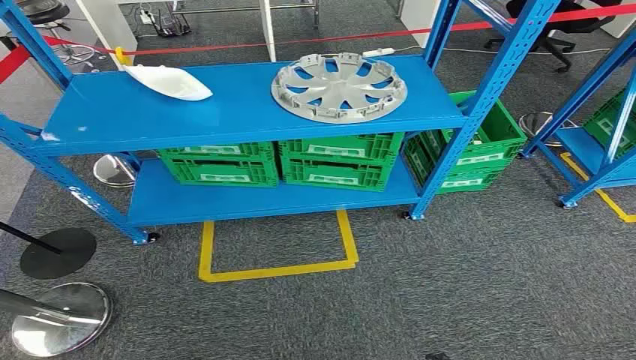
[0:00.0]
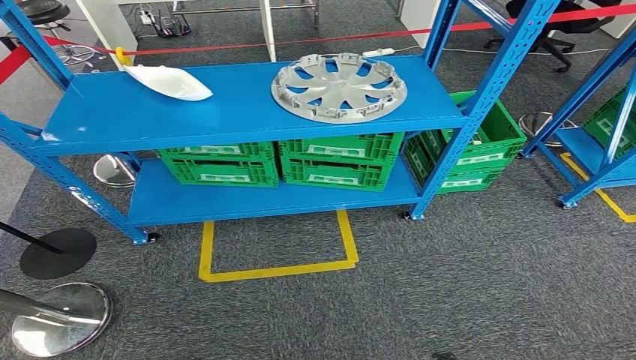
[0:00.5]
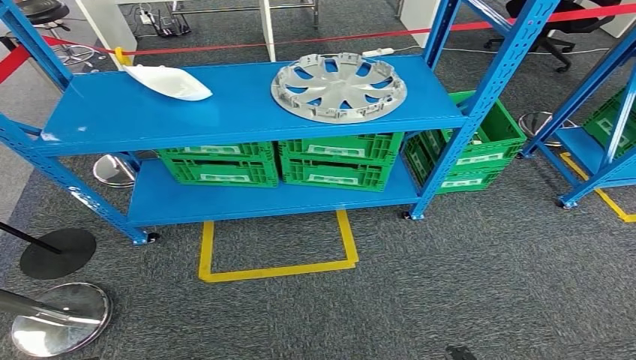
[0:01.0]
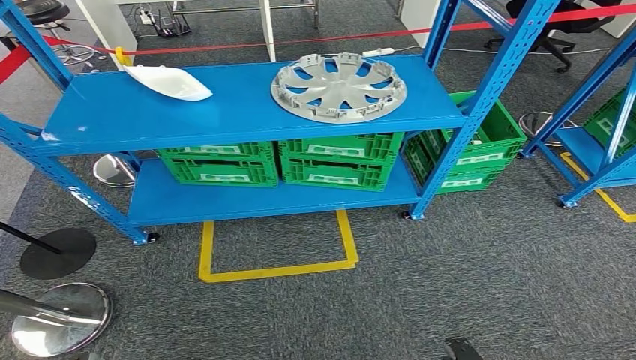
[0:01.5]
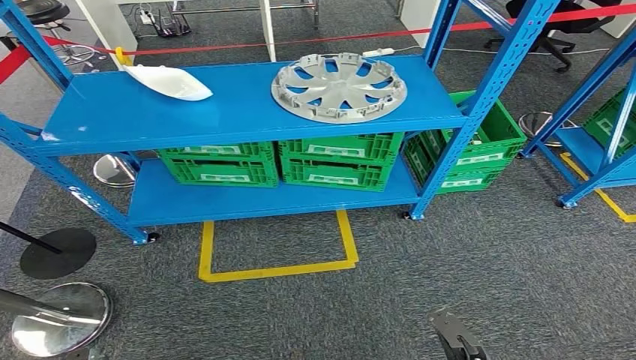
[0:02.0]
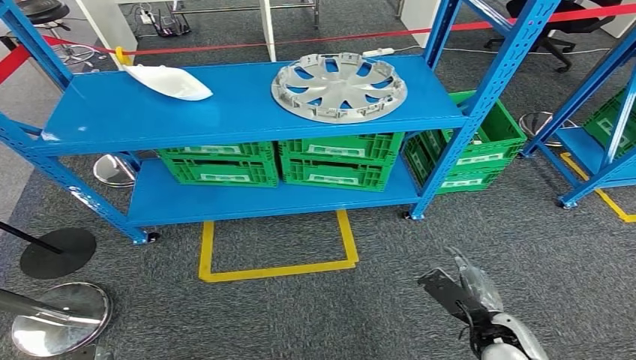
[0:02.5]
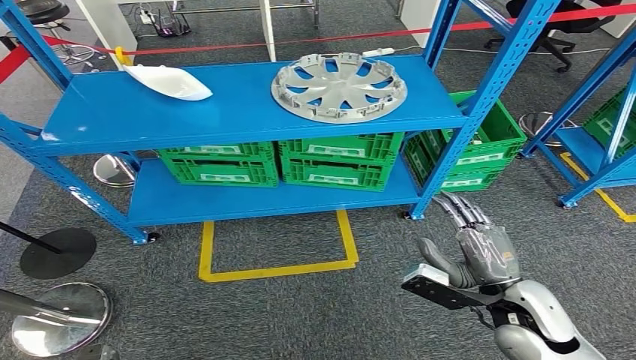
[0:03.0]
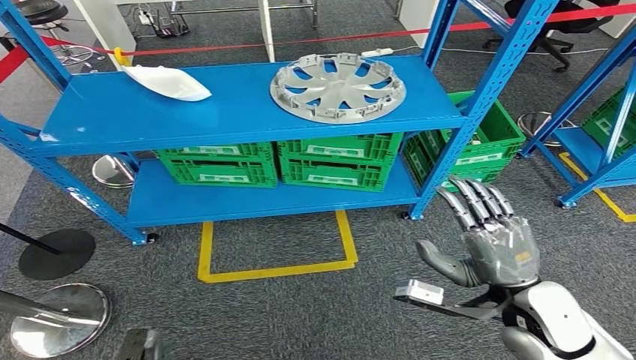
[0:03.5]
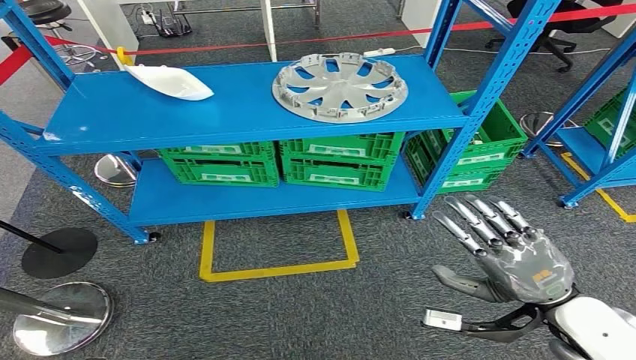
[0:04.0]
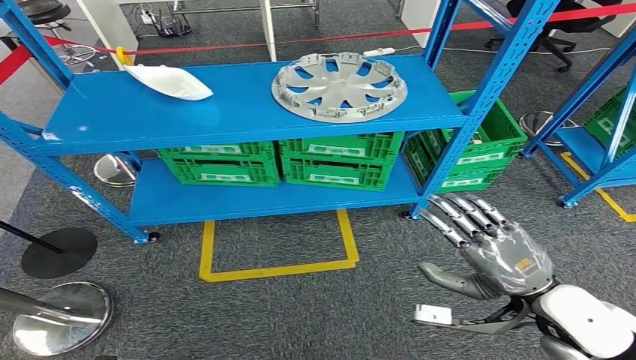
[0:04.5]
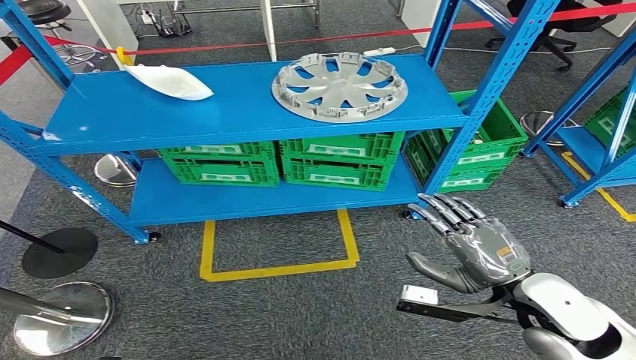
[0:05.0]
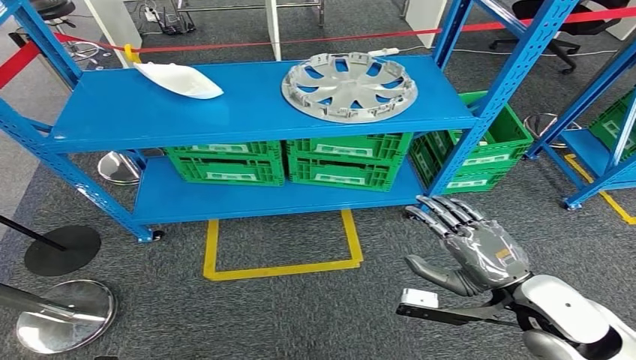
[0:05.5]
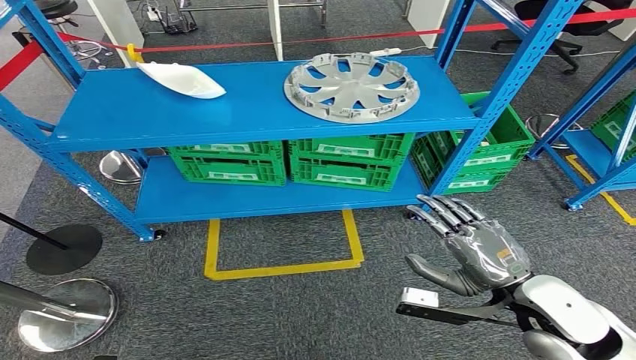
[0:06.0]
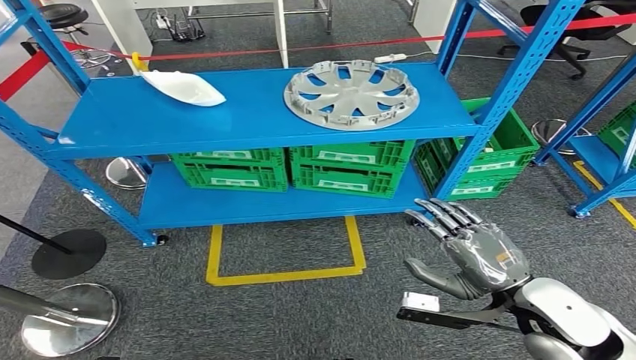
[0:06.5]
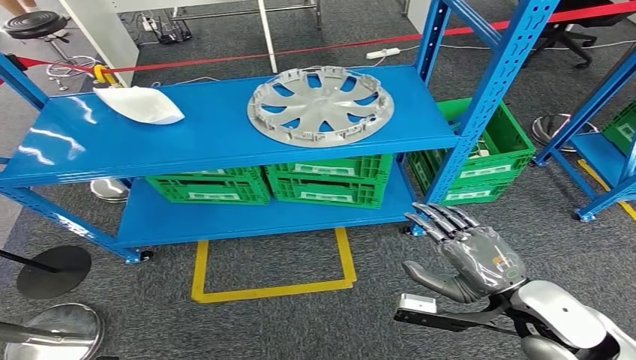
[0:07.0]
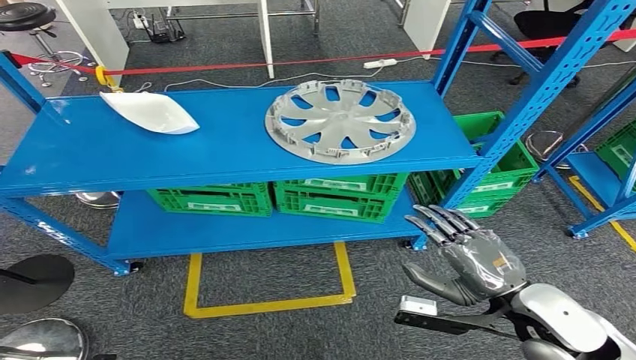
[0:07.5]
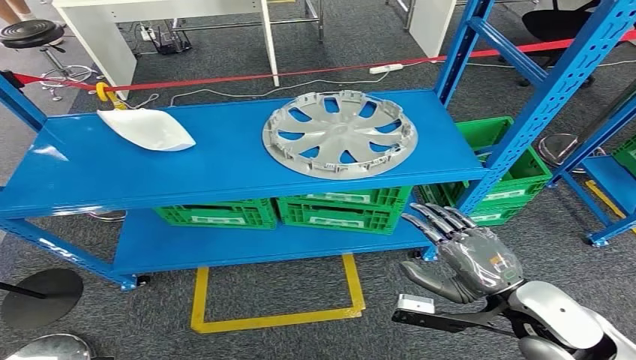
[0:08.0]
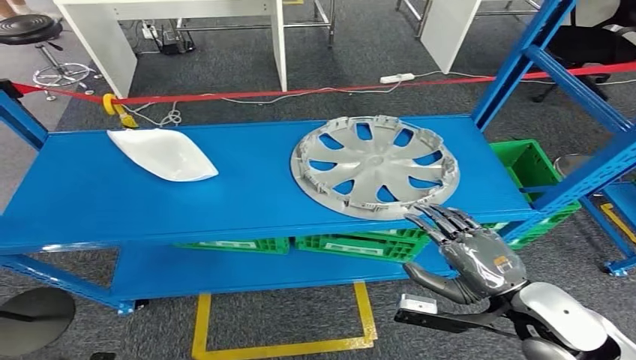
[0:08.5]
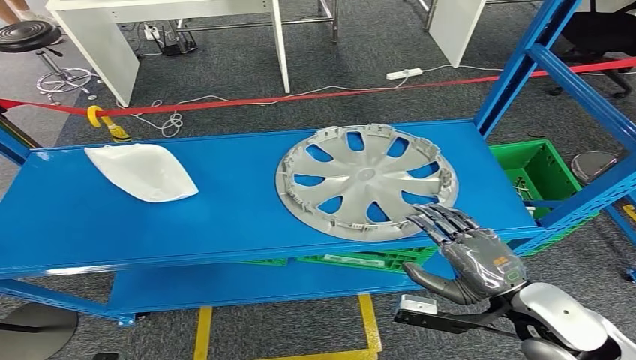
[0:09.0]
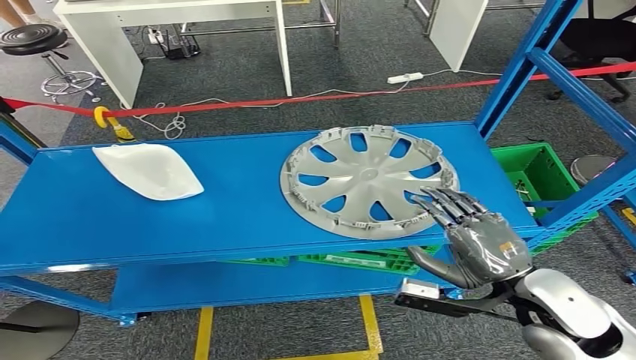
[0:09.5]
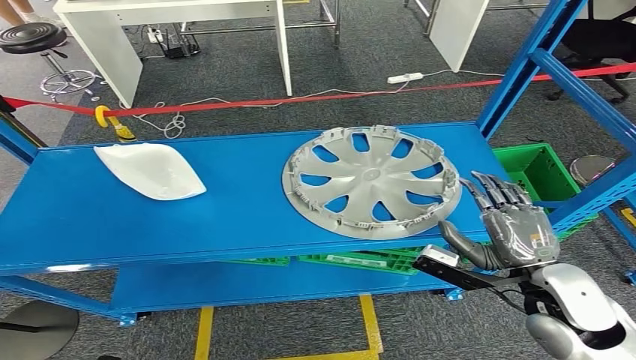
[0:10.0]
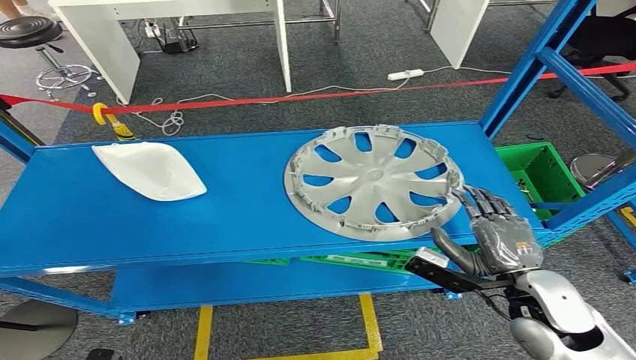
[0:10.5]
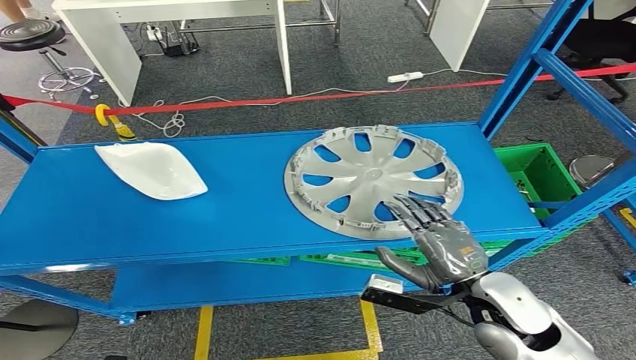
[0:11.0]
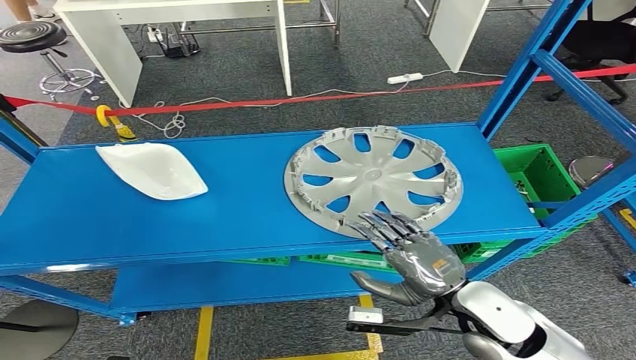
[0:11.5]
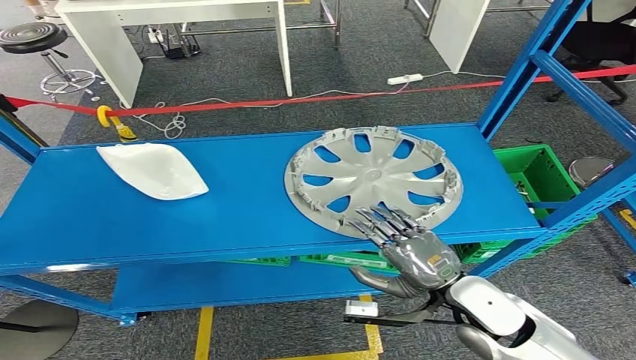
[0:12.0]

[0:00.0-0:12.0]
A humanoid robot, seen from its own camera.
0:02.0 to 0:04.0: The right hand moves upward and forward, approximately 25 cm.
0:10.0 to 0:12.0: The right hand moves to the left and downward, about 10 cm.

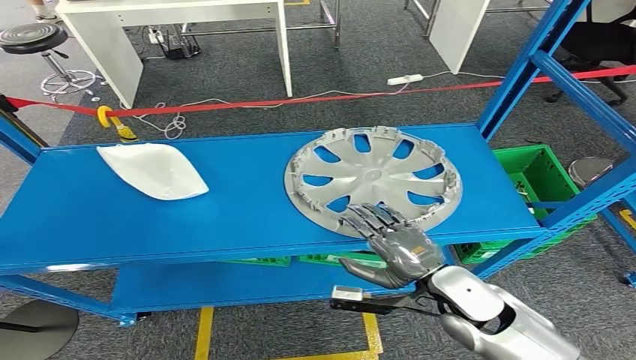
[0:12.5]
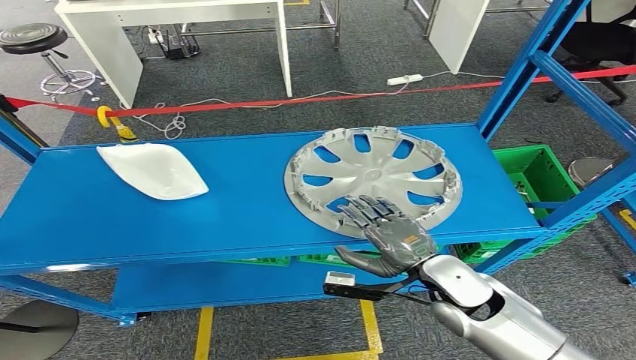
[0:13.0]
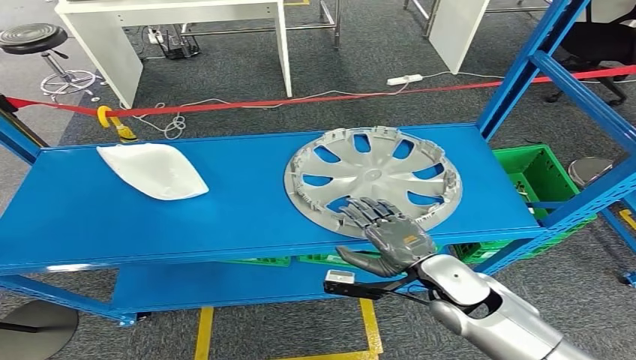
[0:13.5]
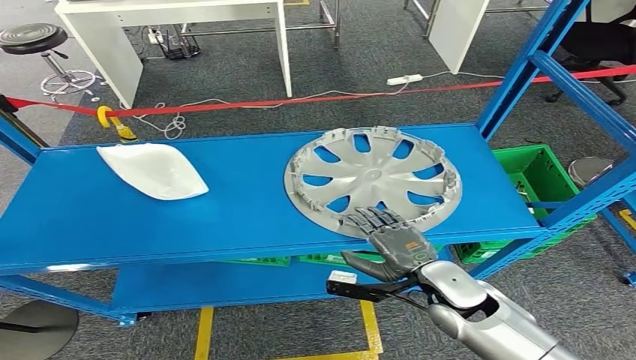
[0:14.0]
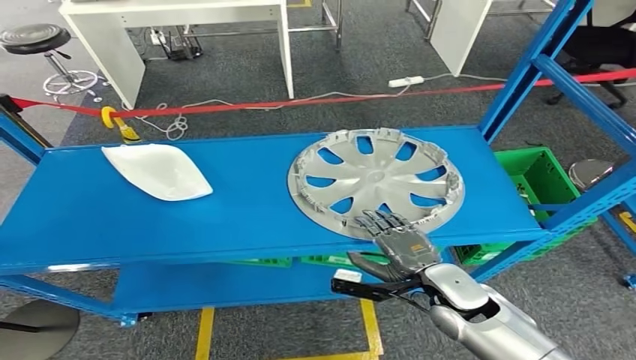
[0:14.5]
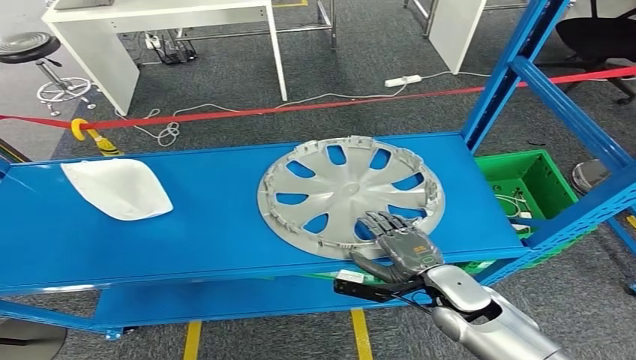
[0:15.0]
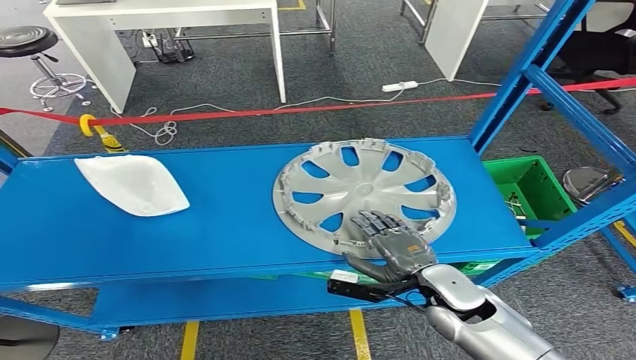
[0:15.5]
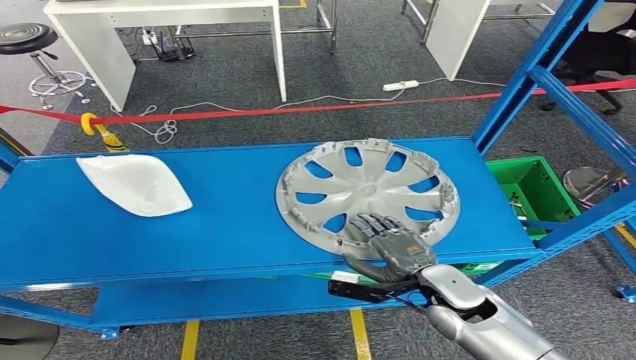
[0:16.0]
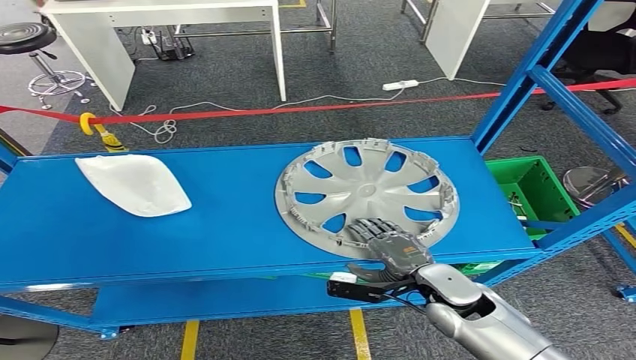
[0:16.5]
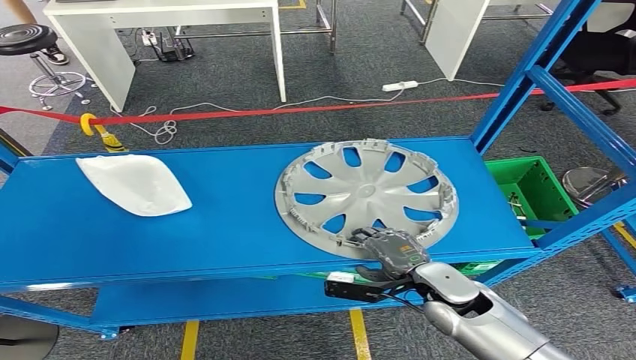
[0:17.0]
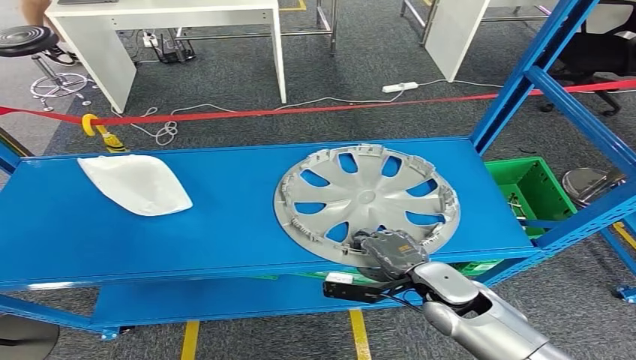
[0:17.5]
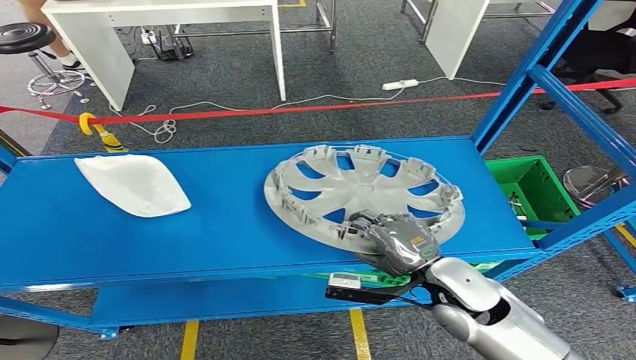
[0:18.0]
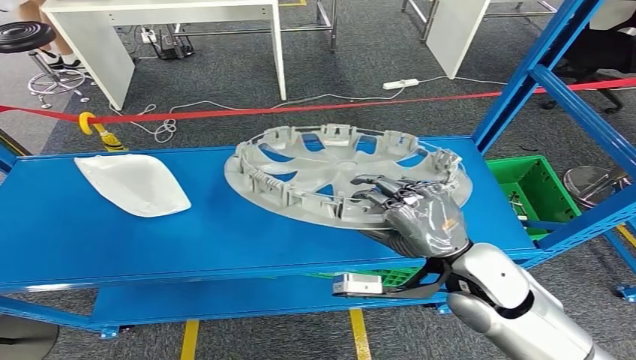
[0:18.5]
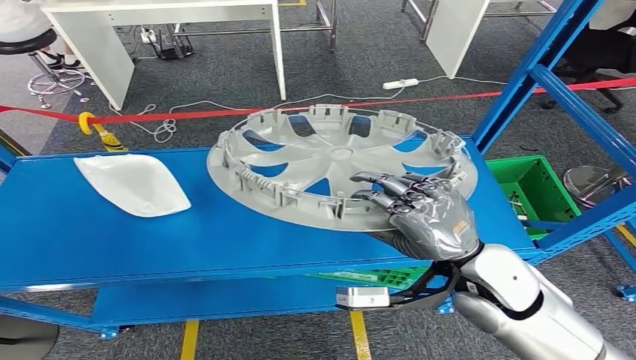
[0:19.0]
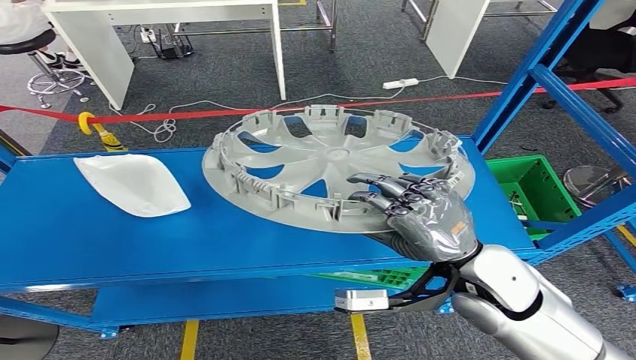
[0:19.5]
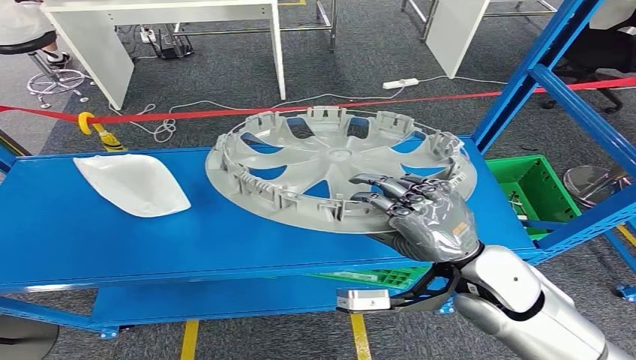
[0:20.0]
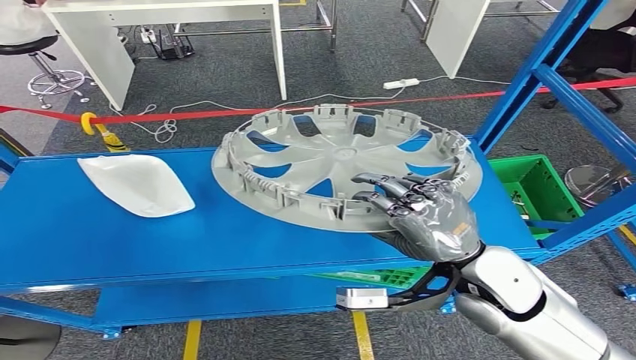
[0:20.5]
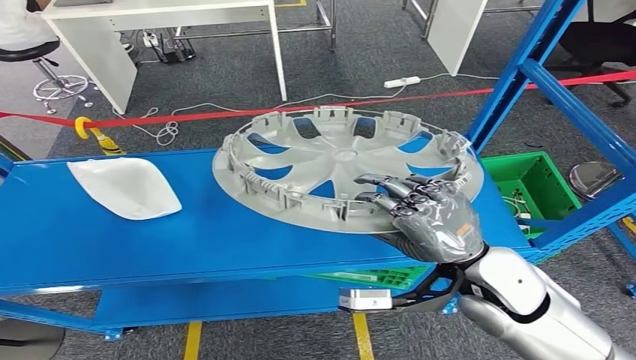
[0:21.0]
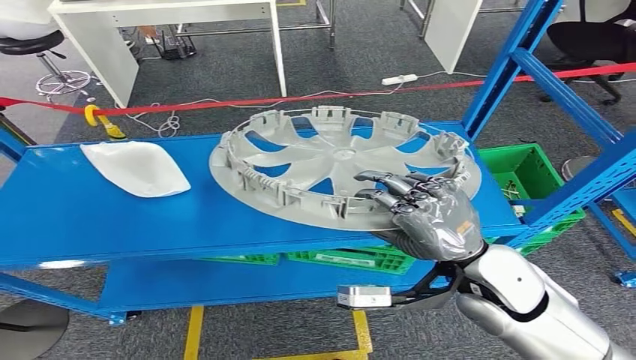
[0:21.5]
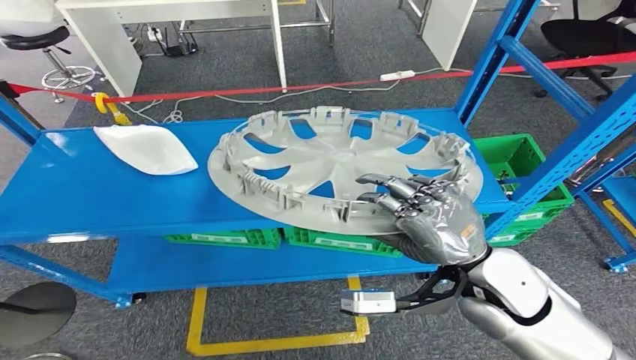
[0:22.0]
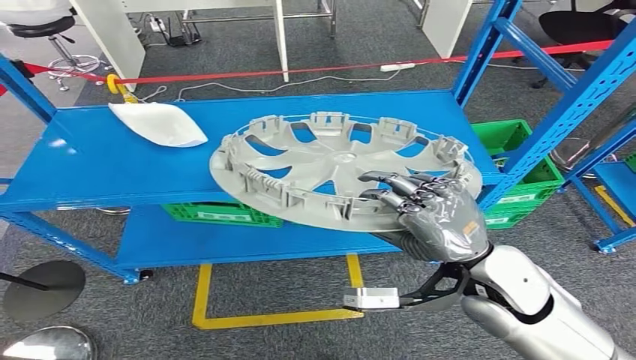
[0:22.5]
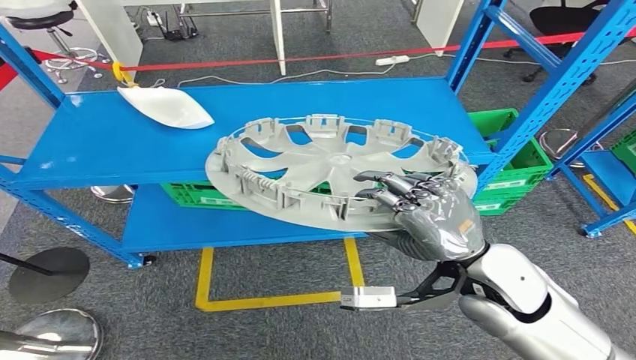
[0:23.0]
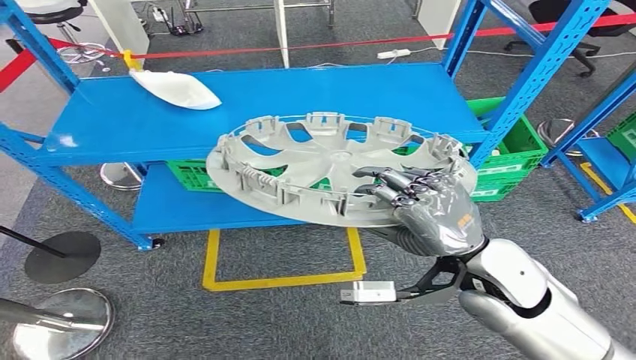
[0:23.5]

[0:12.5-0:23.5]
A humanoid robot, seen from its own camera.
Step, 0:12.5 to 0:22.5: Pick up the small component from the shelf.
0:12.5 to 0:14.5: The hands make only small movements.
0:16.0 to 0:18.0: The right hand moves upward, about 5 cm.
